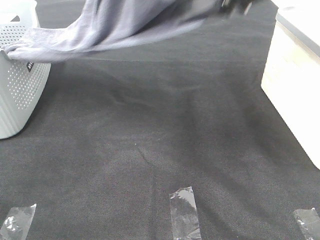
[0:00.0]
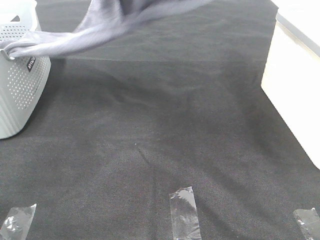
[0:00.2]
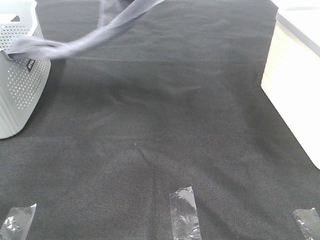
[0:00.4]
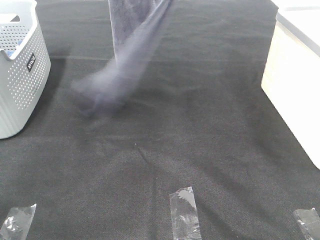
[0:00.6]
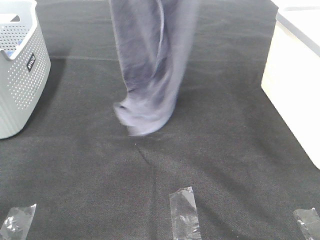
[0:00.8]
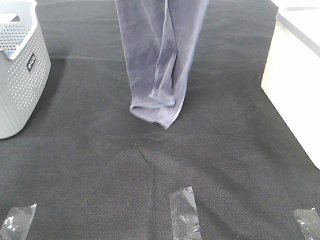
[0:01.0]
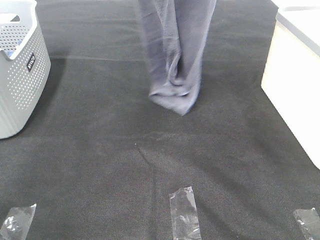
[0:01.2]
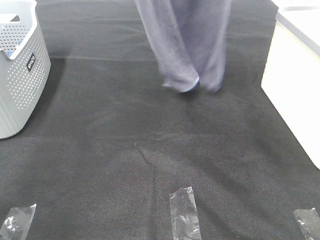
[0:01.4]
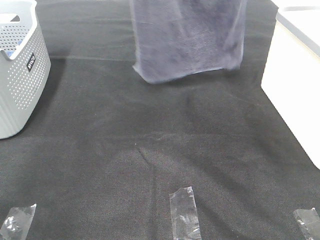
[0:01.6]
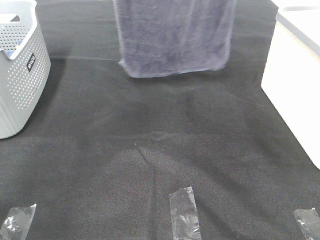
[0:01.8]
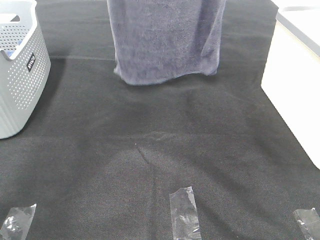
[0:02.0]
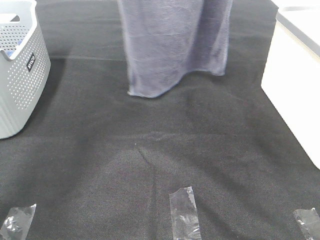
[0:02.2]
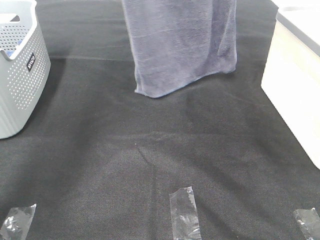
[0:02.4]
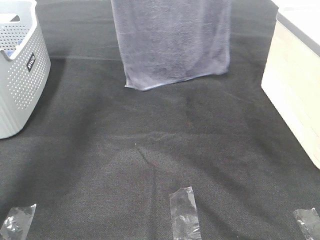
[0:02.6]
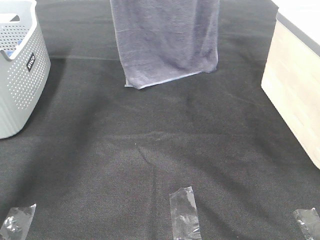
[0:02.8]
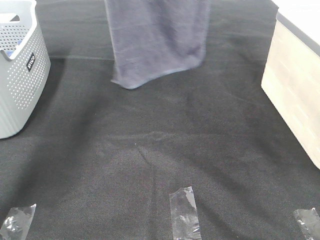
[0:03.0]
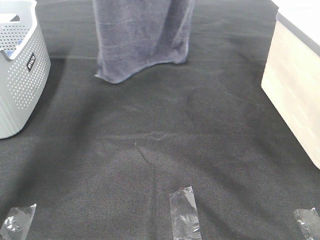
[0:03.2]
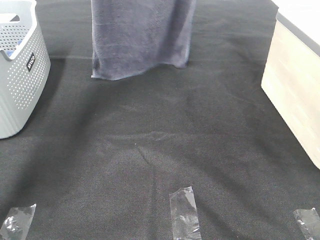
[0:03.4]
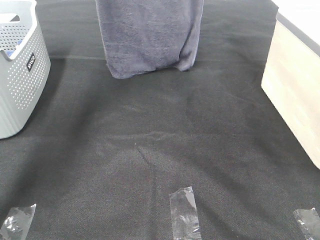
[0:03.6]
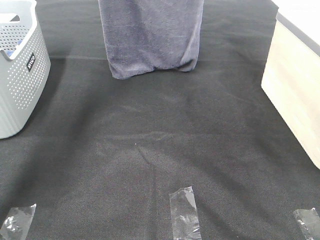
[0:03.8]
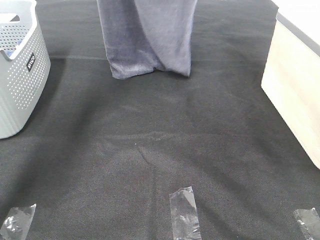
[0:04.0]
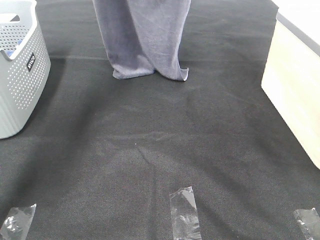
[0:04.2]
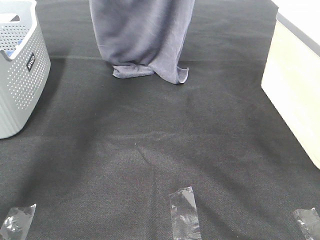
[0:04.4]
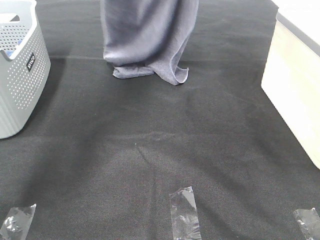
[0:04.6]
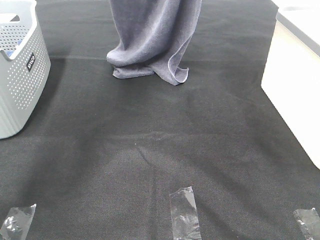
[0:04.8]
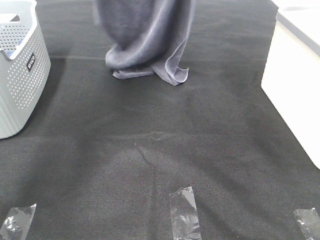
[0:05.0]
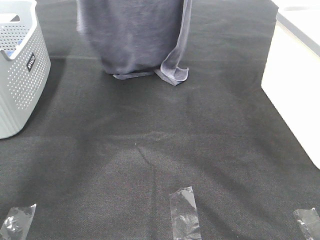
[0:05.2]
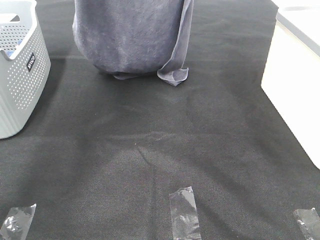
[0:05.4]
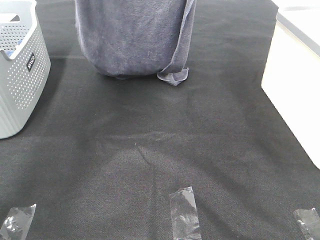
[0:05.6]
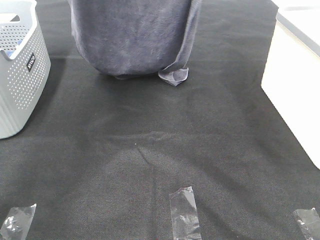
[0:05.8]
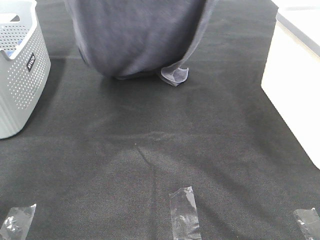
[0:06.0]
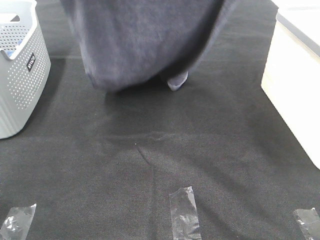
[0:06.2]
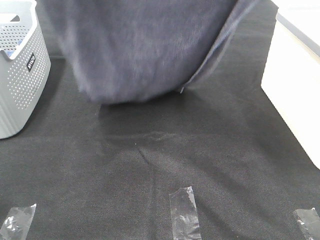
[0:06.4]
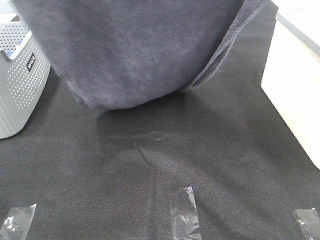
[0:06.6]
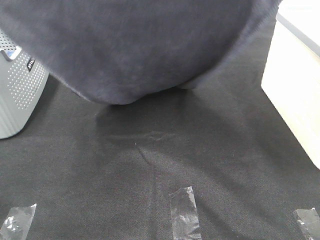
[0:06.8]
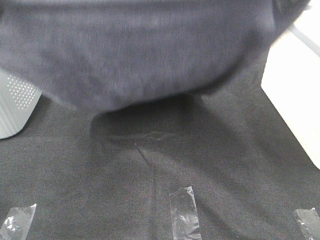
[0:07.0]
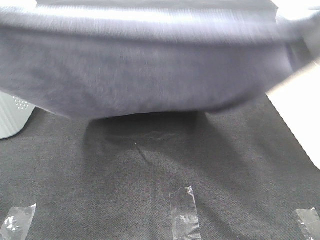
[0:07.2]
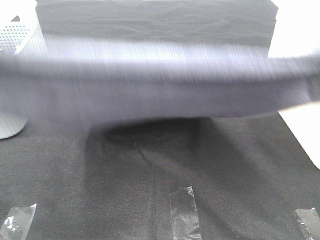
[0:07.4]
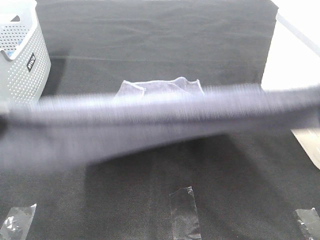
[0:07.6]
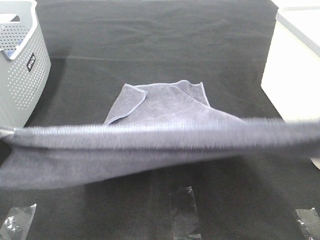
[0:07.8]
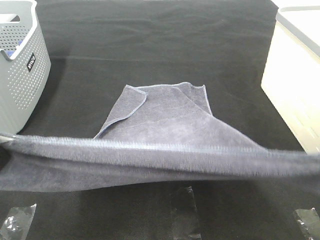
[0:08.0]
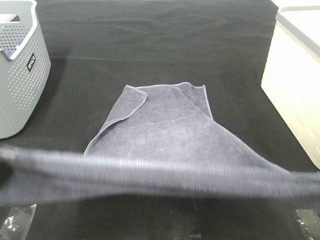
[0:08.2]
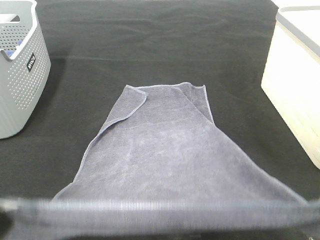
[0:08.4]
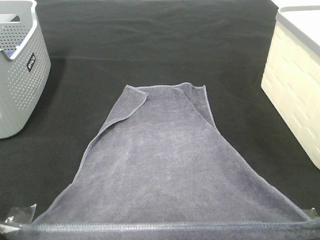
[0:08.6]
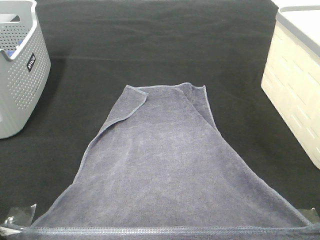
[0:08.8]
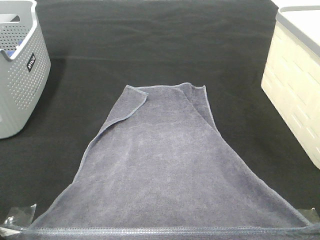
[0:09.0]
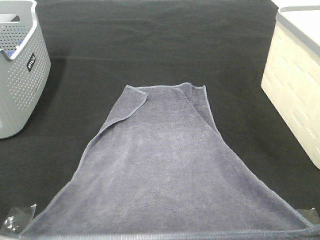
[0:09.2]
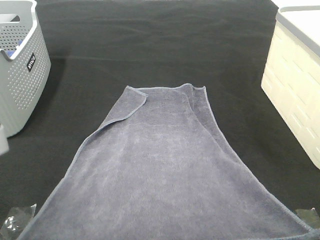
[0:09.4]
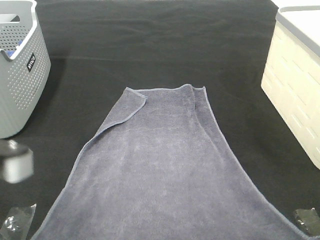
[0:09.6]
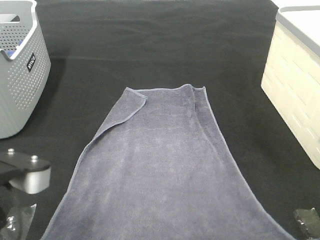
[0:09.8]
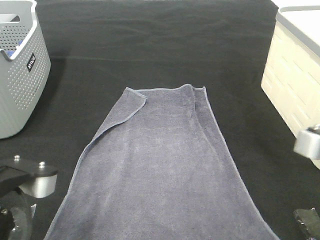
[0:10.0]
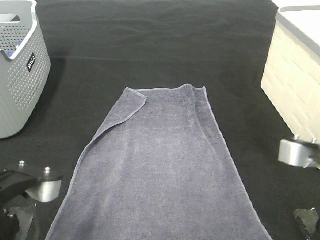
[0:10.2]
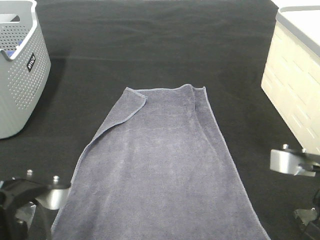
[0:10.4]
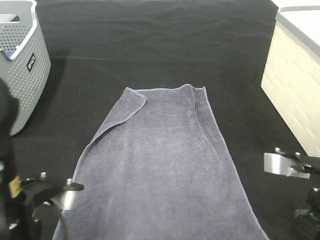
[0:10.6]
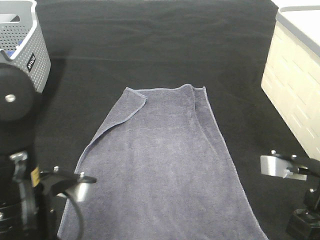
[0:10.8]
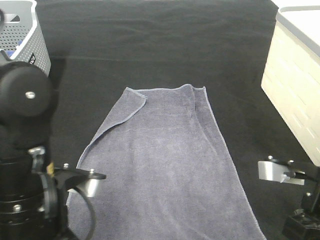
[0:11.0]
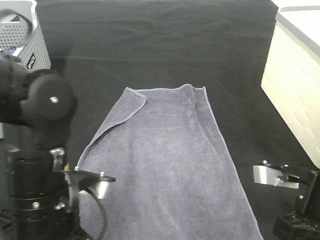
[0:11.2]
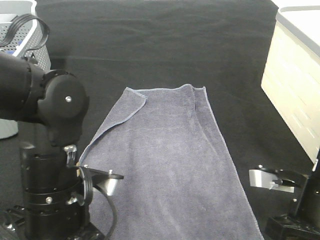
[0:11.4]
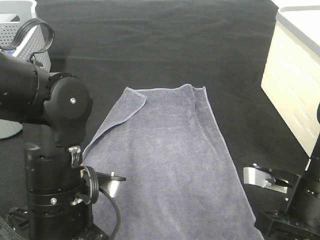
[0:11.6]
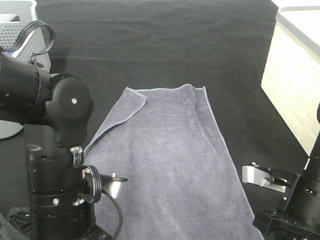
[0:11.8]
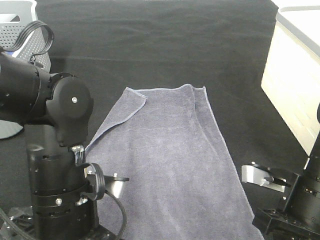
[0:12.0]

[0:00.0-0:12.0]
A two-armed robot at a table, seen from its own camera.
Task of the whole recording: Remove the towel and place it.
Step, 0:01.6 to 0:07.4: Left hand: spread the grey towel flat on the table.
Step, 0:01.6 to 0:07.4: Right hand: spread the grey towel flat on the table.
0:00.0 to 0:01.6: The right gripper heads upward, covering some 20 cm. Meanwhile the left gripper heads forward and to the left, covering some 10 cm.
0:01.6 to 0:03.0: Both grippers move forward and downward, some 15 cm.
0:04.4 to 0:06.0: The grippers both shift backward by approximately 15 cm.
0:06.0 to 0:07.6: The left gripper shifts some 25 cm backward and downward; the right gripper shifts roughly 20 cm backward.
0:07.6 to 0:09.0: The grippers both shift downward by some 10 cm.
0:09.0 to 0:10.4: The right gripper is displaced downward and forward by roughly 10 cm; the left gripper heads downward, covering about 10 cm.
0:10.4 to 0:12.0: The left gripper travels to the right by some 5 cm. Meanwhile the right gripper moves downward, some 5 cm.

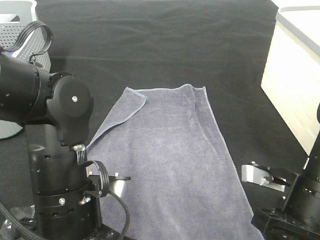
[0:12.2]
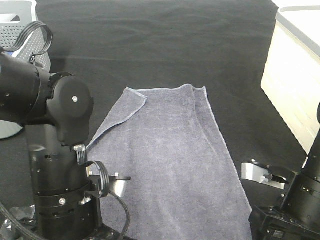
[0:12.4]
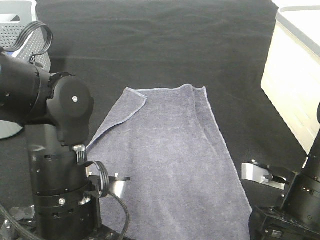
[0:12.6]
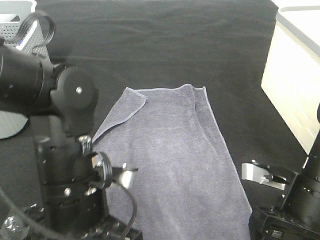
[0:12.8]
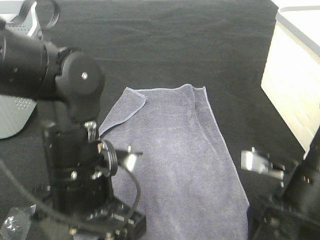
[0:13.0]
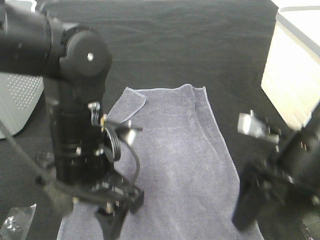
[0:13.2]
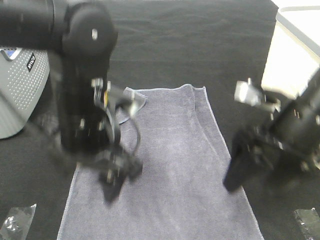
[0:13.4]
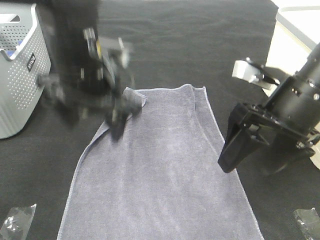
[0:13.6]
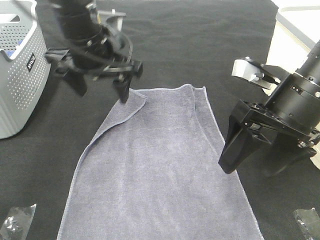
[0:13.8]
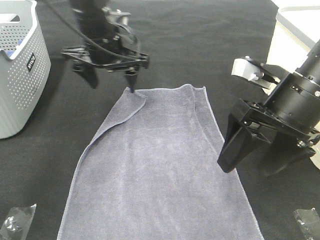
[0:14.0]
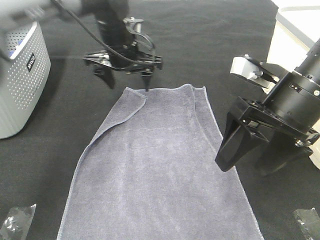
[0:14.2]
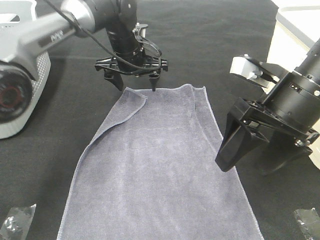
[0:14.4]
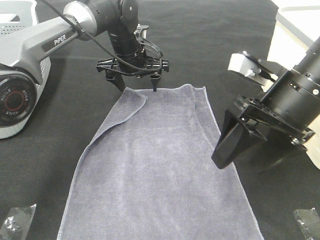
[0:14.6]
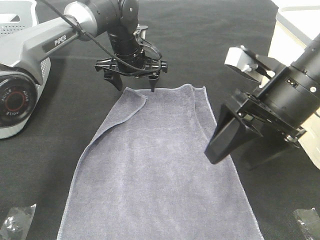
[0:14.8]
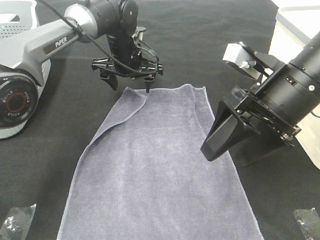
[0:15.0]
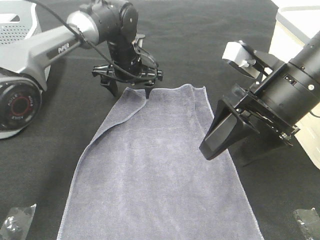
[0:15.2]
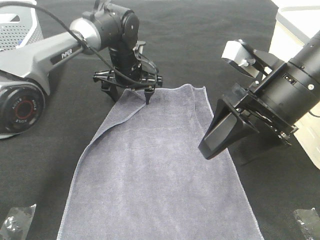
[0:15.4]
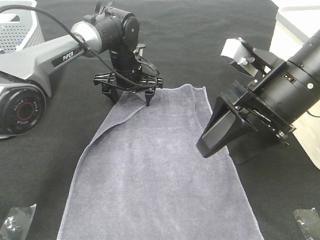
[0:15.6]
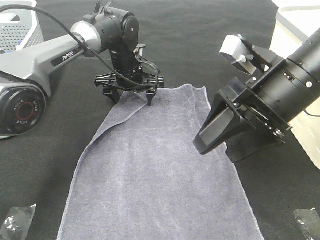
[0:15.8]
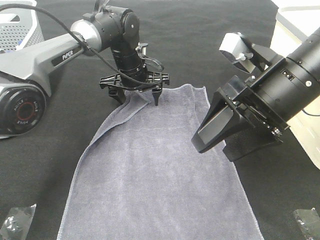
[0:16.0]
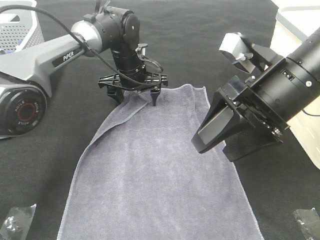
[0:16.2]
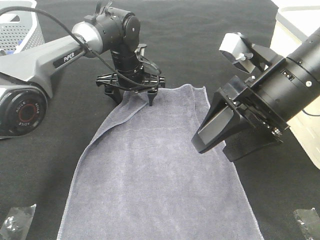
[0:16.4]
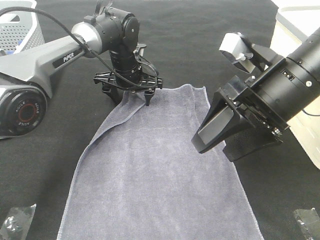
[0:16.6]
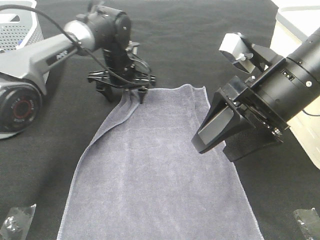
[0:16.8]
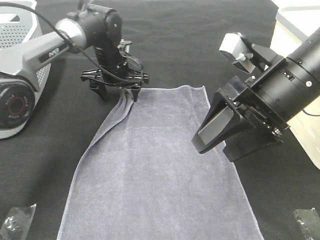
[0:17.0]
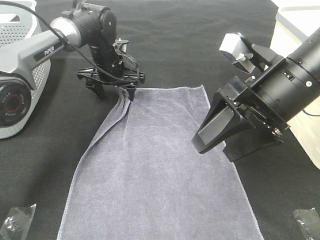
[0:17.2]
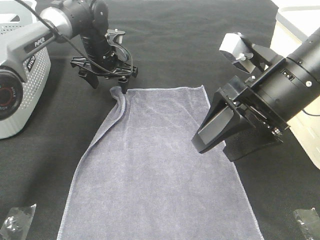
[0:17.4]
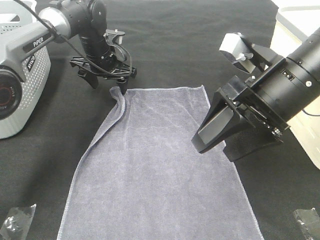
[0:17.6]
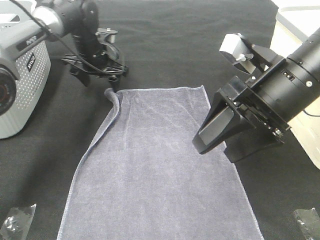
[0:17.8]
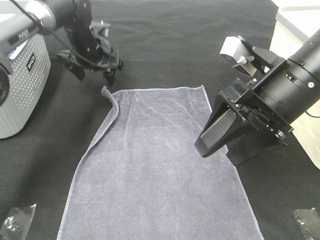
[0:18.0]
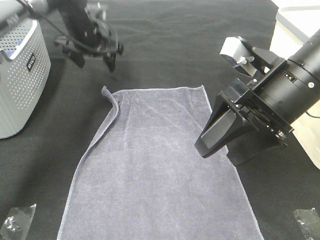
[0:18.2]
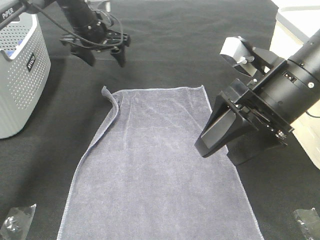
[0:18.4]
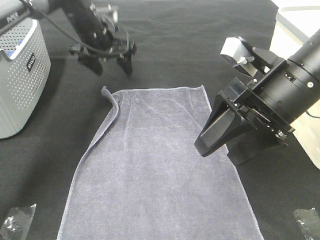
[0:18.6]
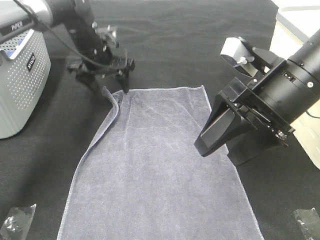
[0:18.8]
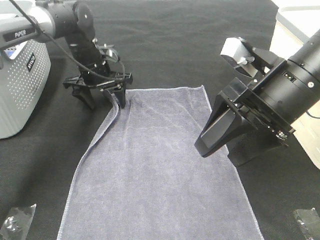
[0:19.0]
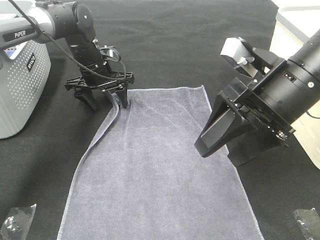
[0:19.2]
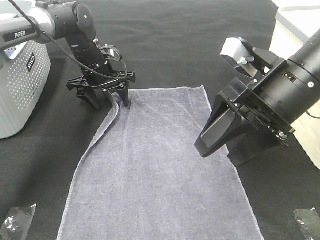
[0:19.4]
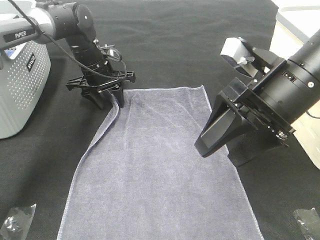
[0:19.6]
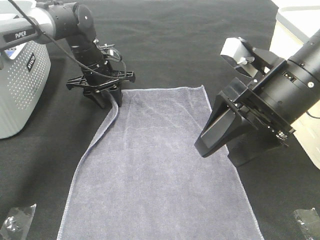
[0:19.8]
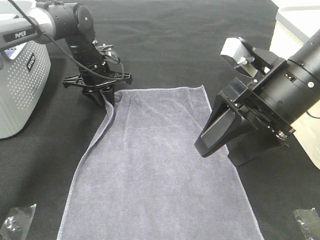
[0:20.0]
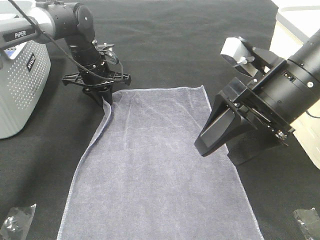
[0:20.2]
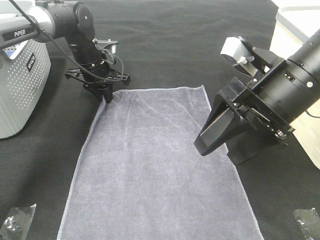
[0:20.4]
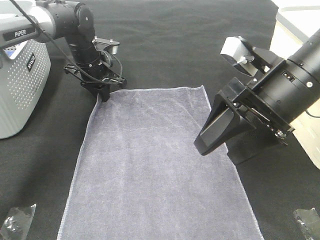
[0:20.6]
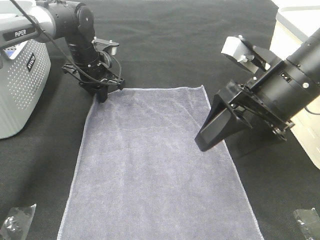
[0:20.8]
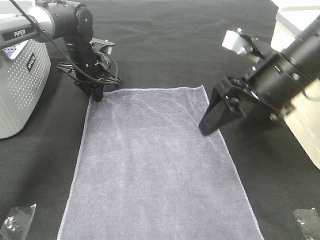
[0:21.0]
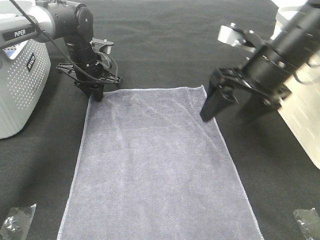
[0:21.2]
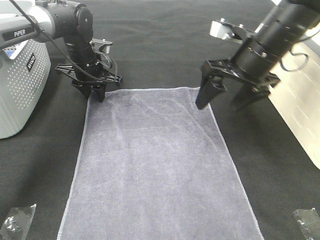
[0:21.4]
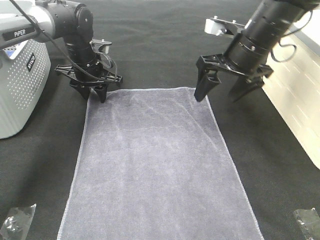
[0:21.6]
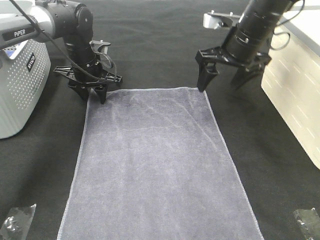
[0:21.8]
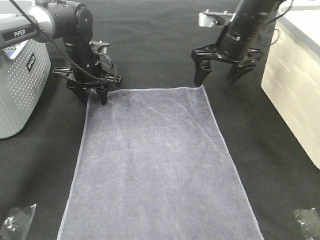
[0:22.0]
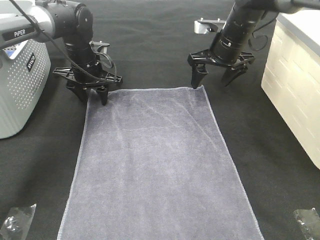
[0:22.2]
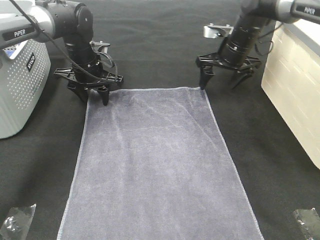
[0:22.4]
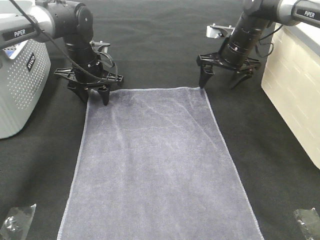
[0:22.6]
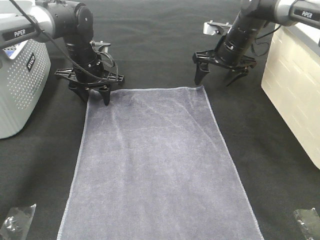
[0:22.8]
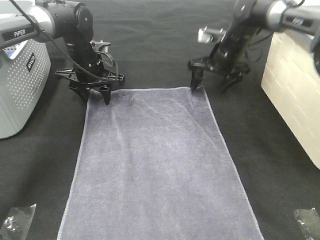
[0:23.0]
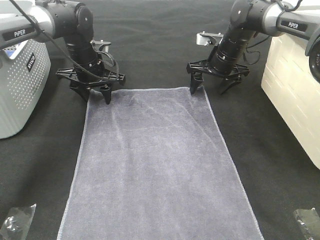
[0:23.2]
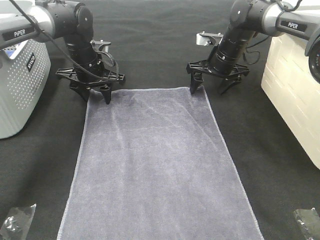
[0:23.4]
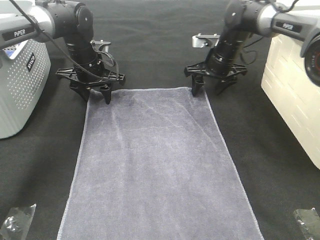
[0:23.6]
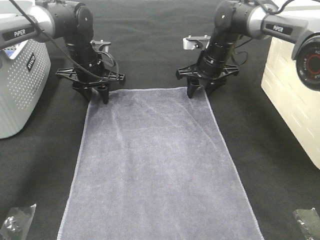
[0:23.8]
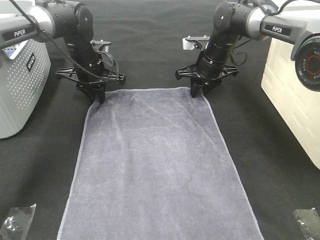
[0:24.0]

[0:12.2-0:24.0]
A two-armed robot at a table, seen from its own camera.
Task of the whole recording: Remove the towel and place it.
Step, 0:12.2 to 0:20.6: Left hand:adjust the gray towel.
Step, 0:12.2 to 0:20.6: Right hand:adjust the gray towel.
0:12.2 to 0:13.6: The left gripper is displaced forward and upward by some 15 cm. Meanwhile the right gripper is displaced upward and forward by about 10 cm, and opens its fingers.
0:13.6 to 0:15.2: The left gripper goes roughly 20 cm forward and downward.
0:15.2 to 0:16.6: The grippers stay close to where they were, moving slightly.
0:16.6 to 0:18.2: The left gripper shifts some 10 cm to the left and upward.
0:18.2 to 0:19.6: The left gripper moves downward, roughly 10 cm.
0:21.0 to 0:22.6: The right gripper heads forward, covering approximately 25 cm; the left gripper opens up.
0:22.6 to 0:24.0: The left gripper closes. Meanwhile the right gripper travels to the left by roughly 5 cm, and closes up.
